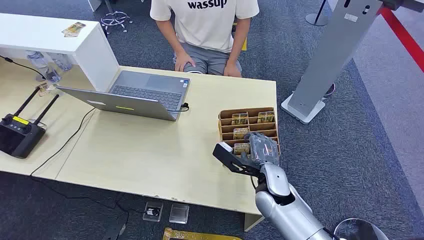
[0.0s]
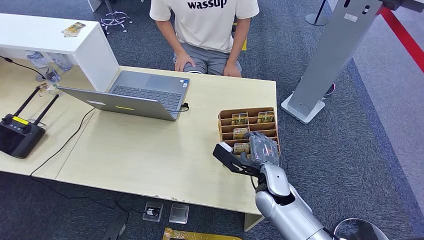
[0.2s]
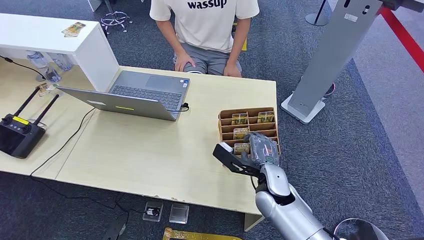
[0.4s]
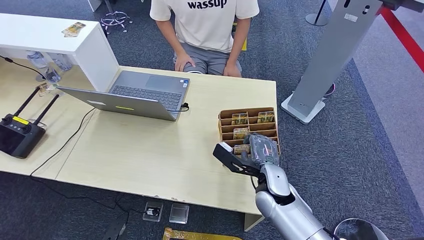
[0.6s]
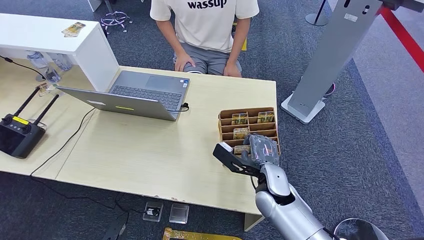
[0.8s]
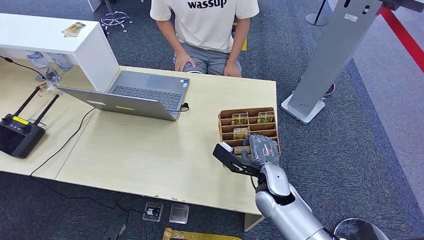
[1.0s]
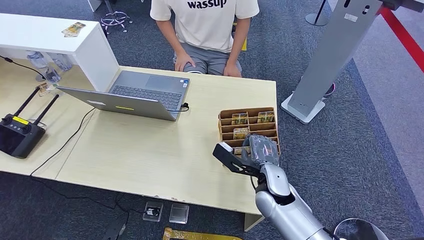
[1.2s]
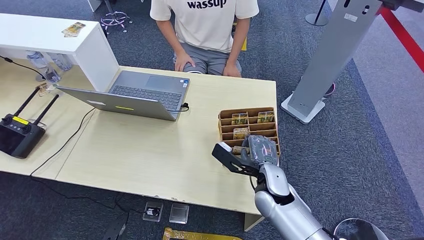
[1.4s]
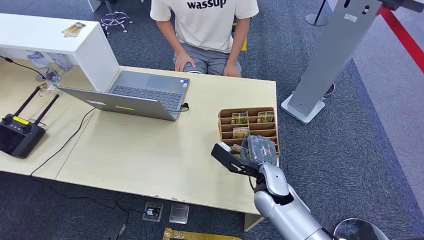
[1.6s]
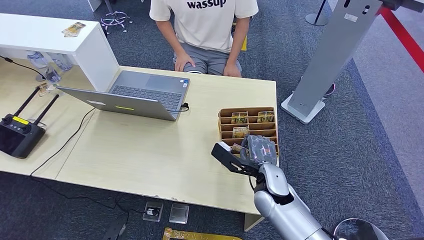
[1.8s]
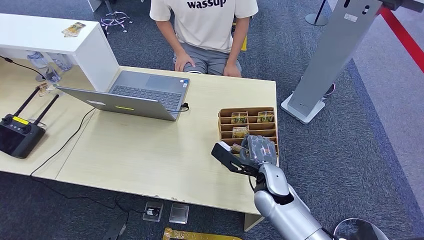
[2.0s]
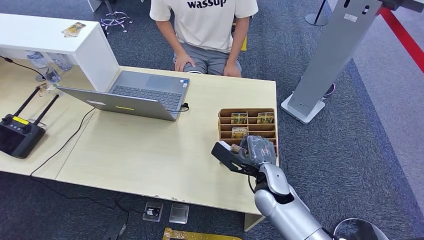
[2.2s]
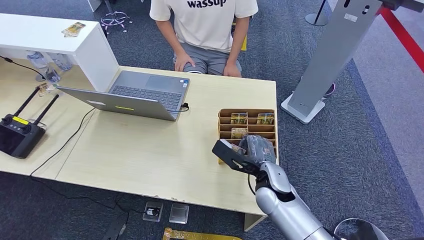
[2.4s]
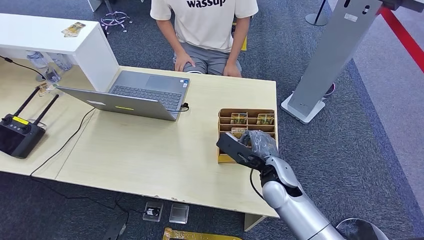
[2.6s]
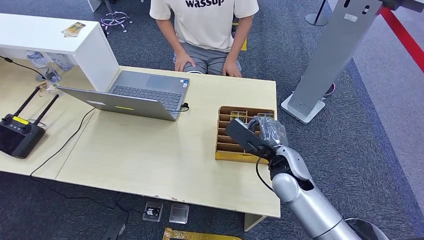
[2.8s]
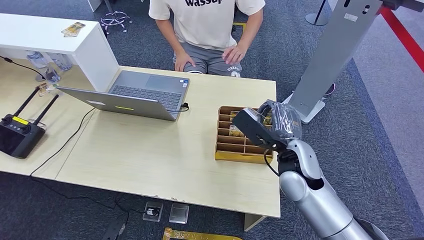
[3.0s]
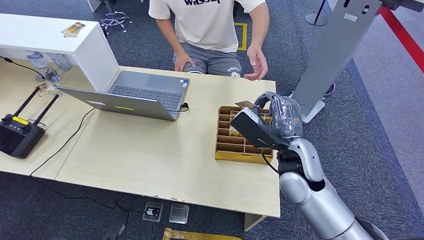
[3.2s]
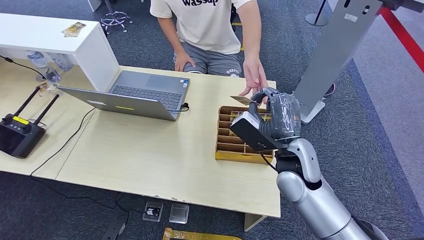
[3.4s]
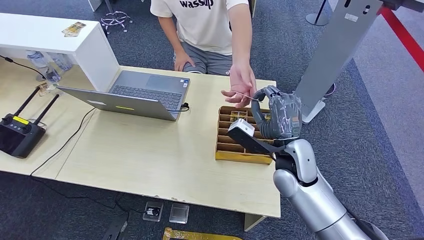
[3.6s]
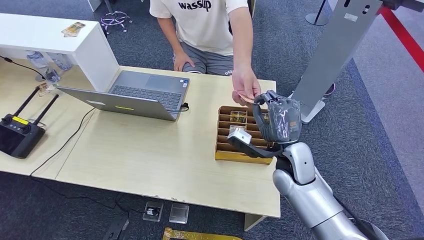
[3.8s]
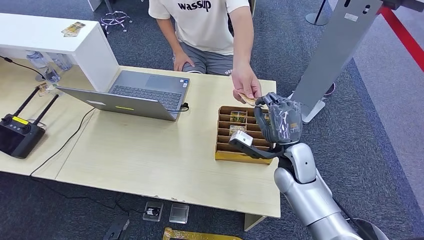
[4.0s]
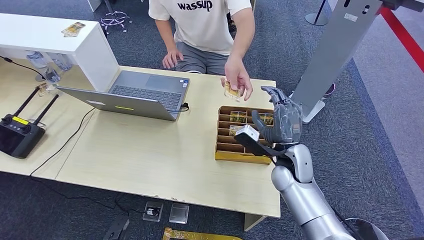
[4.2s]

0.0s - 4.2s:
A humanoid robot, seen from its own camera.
Step, 0.0s - 2.6s: Pick up the key card from the card box.
Step, 3.0s - 4.2s: Hand the key card to the target.
1.4s - 2.8s: The right hand travels upward by approximately 5 cm.
